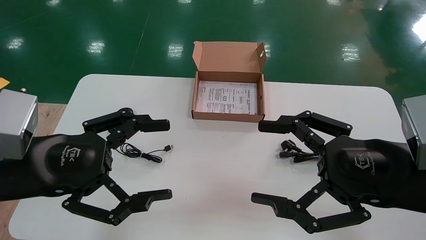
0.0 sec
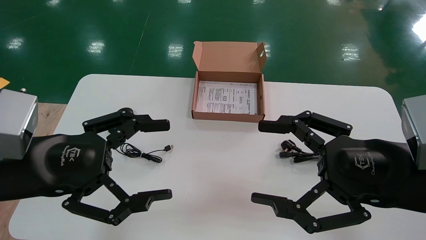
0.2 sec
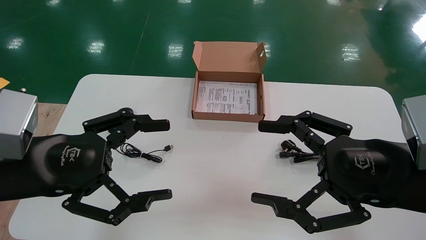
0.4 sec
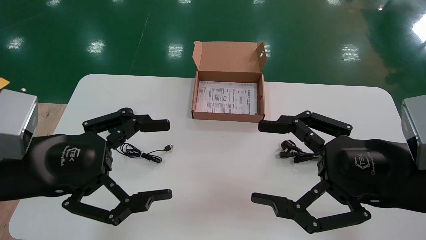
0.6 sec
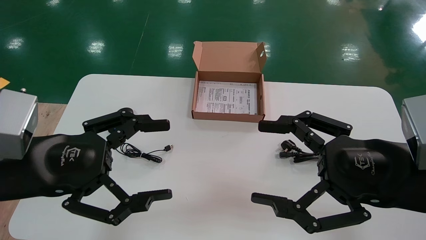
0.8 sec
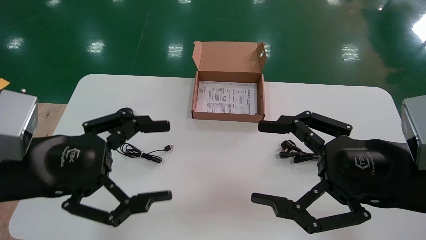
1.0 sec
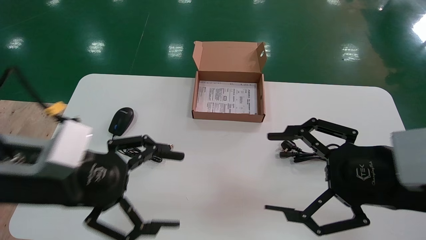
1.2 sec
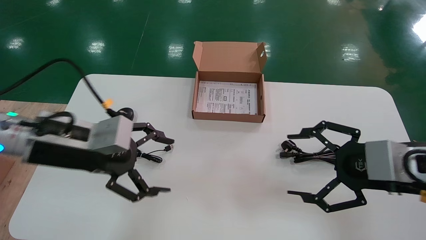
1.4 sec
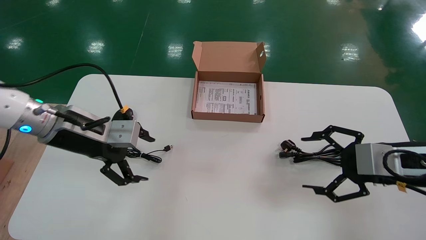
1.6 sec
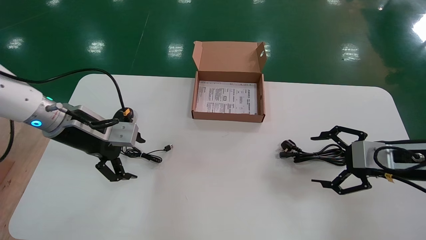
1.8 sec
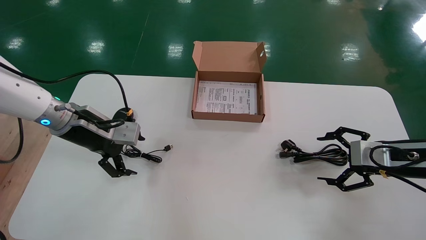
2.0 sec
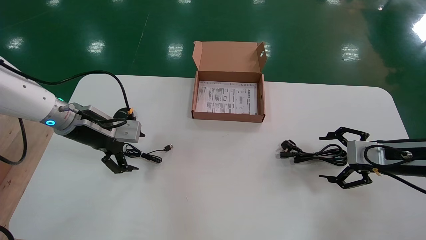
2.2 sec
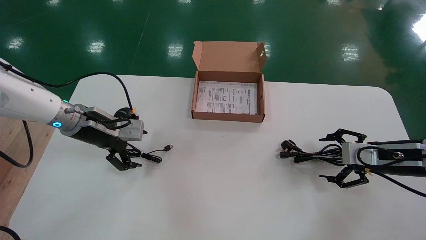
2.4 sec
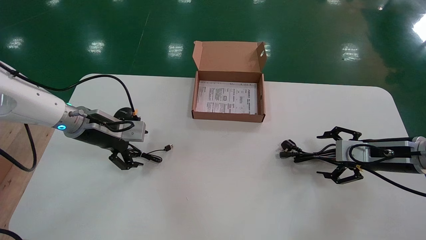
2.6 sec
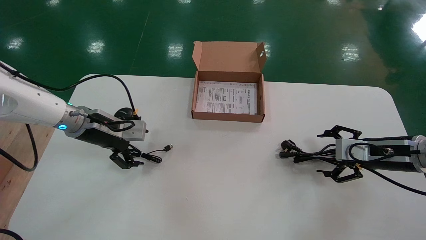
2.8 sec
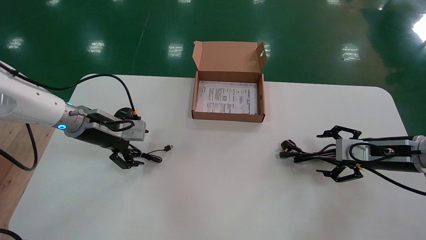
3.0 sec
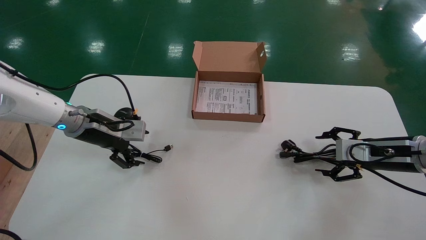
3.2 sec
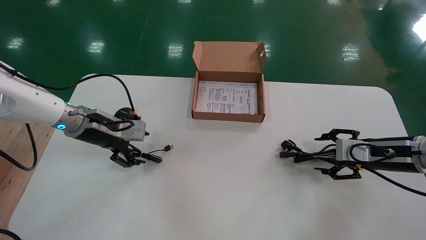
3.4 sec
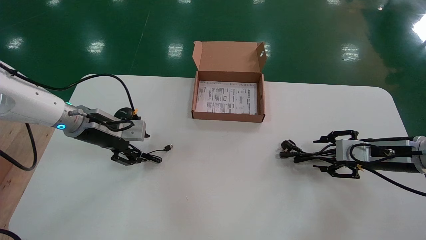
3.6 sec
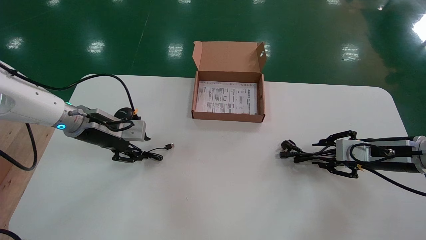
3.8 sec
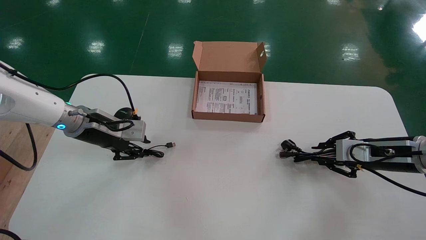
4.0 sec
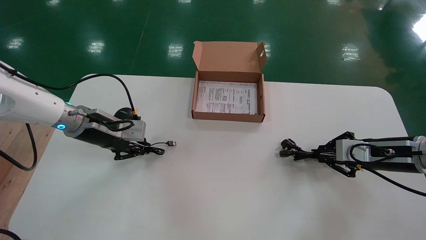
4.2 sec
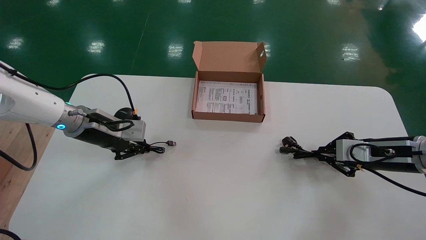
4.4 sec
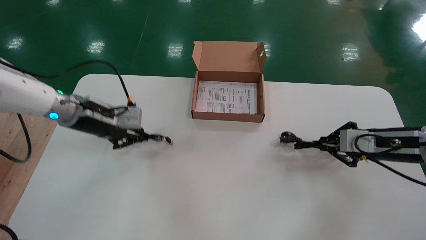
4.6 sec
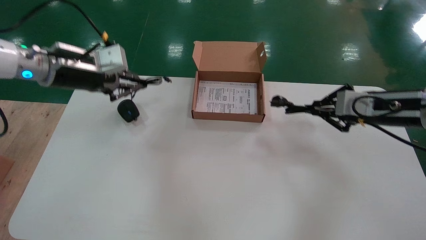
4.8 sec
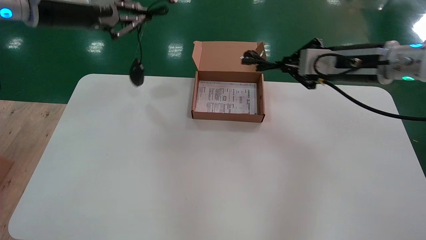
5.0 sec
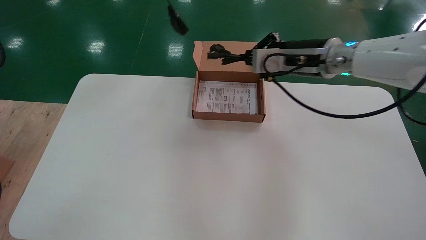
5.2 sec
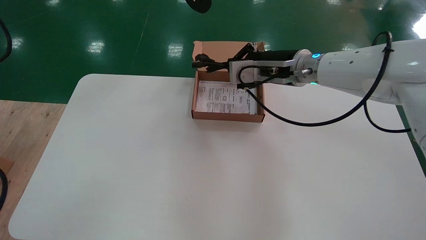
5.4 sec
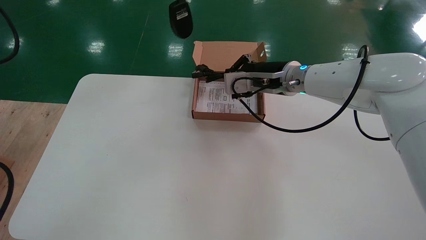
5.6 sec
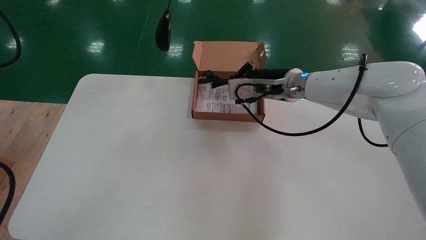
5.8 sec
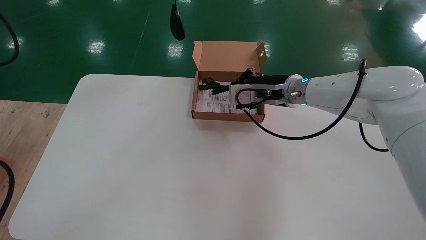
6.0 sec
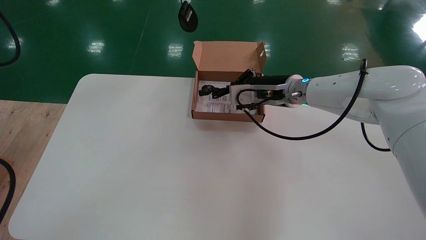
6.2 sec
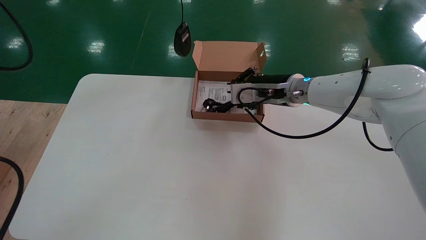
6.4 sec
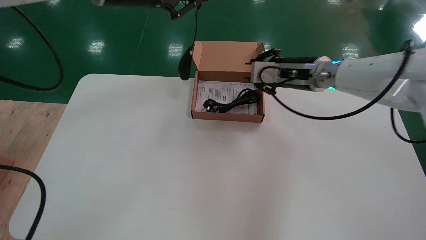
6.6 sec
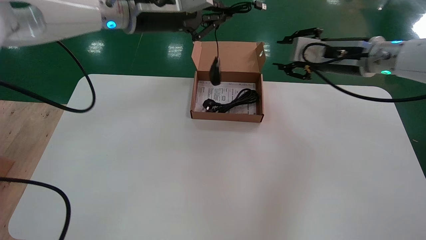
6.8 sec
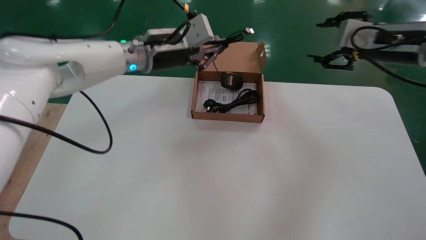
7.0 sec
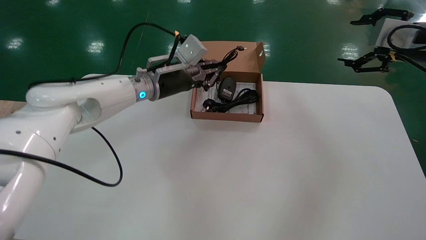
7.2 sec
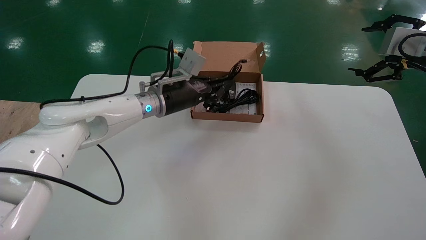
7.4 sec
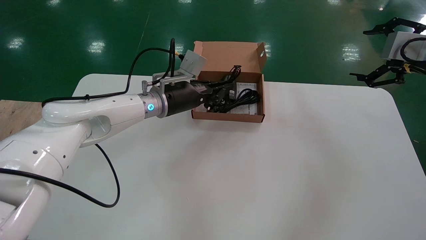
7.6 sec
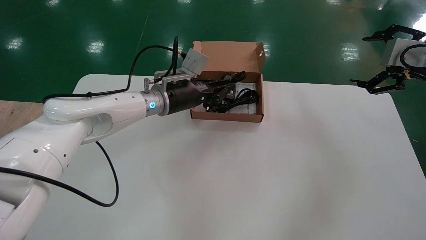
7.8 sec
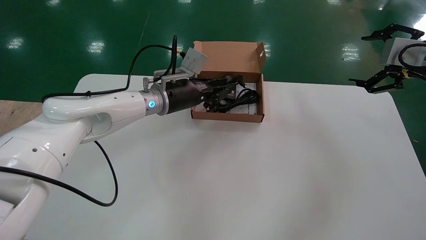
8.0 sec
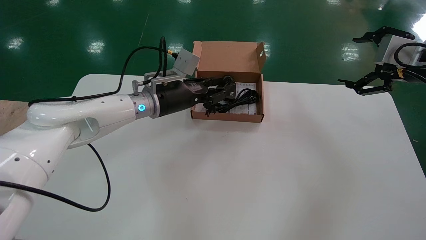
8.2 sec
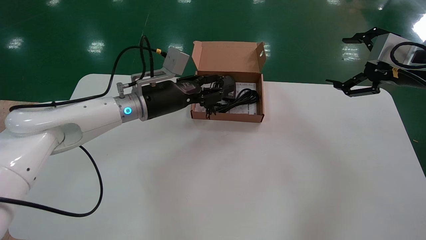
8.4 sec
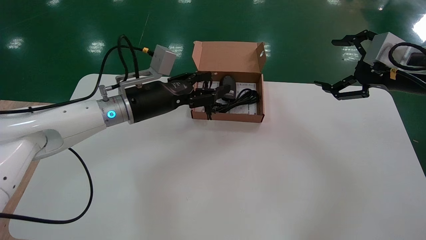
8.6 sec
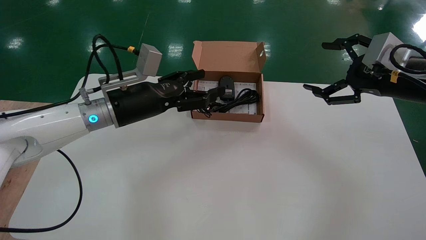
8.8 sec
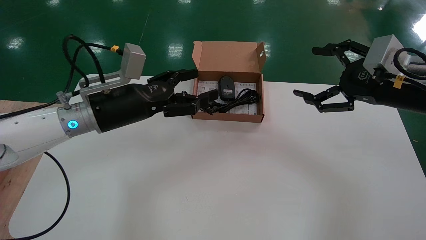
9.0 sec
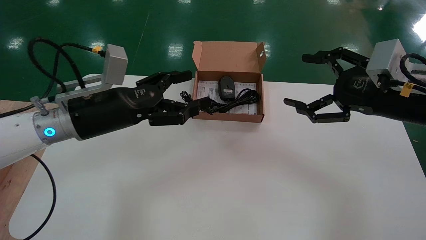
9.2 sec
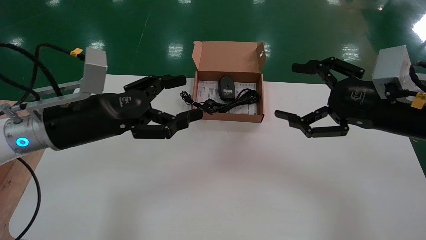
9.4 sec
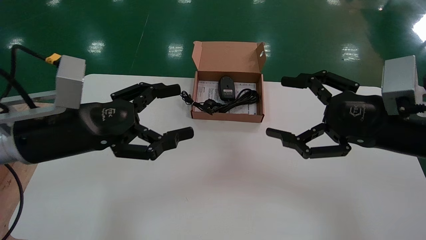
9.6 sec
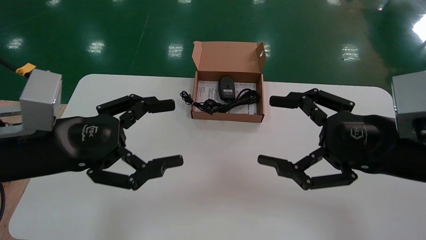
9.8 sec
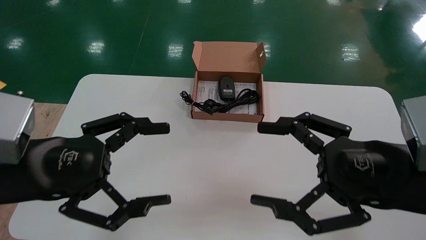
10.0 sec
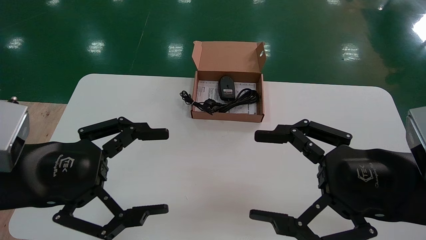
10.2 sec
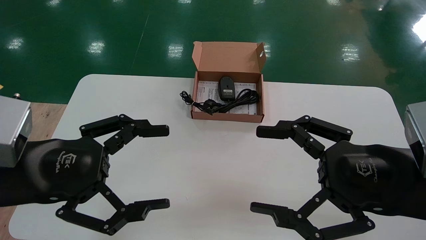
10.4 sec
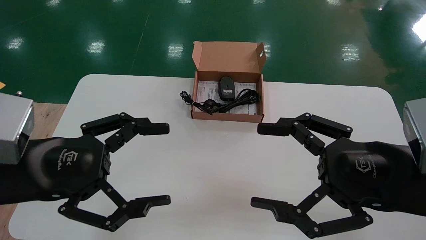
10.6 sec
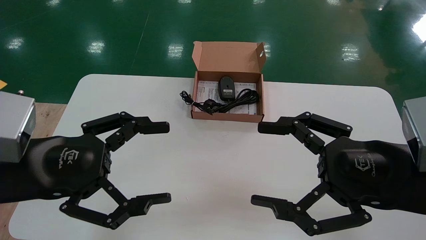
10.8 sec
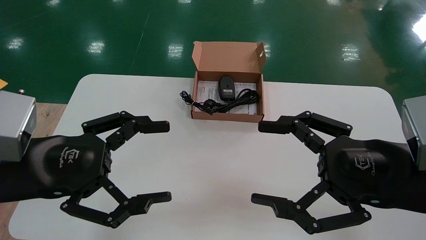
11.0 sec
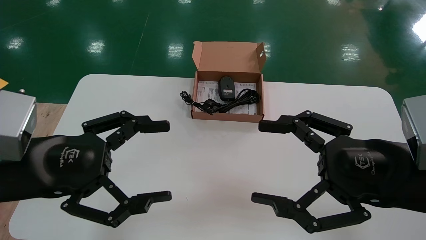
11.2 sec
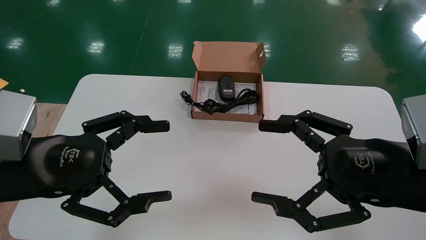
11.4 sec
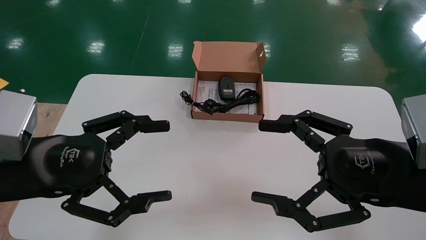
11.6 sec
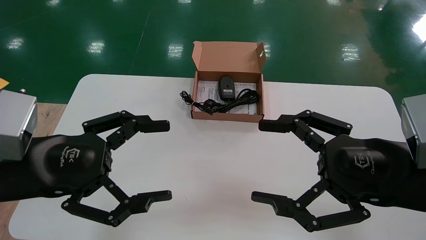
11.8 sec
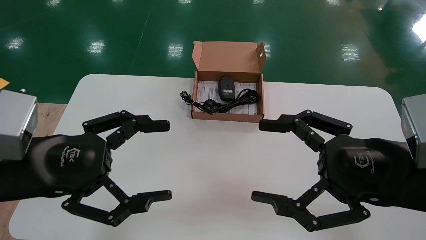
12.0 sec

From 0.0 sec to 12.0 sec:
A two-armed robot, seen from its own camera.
Step, from 1.4 sec to 4.4 sec: Simultaneously pick up the mouse and power cord from the accessory packaging area.
Step, from 4.6 sec to 8.6 sec: Place the mouse and power cord into the box.
From 0.0 sec to 1.6 sec: The left gripper goes roughly 15 cm forward, while the right gripper travels forward and to the right by about 15 cm.
From 1.6 sec to 3.0 sec: Both grippers move forward, approximately 10 cm.
From 3.0 sec to 4.4 sec: The right gripper closes, while the left gripper closes its fingers.
From 4.4 sec to 6.0 sec: The right gripper goes about 25 cm to the left and forward, while the left gripper goes roughly 30 cm upward.
From 6.0 sec to 7.6 sec: The right gripper heads to the right and backward, covering approximately 30 cm, and opens up; the left gripper goes some 30 cm downward and forward.
From 7.6 sec to 9.0 sec: The left gripper heads backward and to the left, covering approximately 15 cm, and opens. Meanwhile the right gripper travels to the left by some 10 cm.
From 9.0 sec to 10.4 sec: The left gripper goes roughly 15 cm backward. The right gripper heads backward, to the left and downward, covering some 15 cm.
From 10.4 sec to 12.0 sec: The two grippers keep their place.

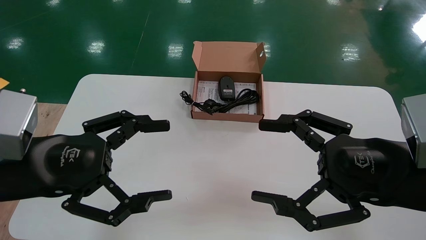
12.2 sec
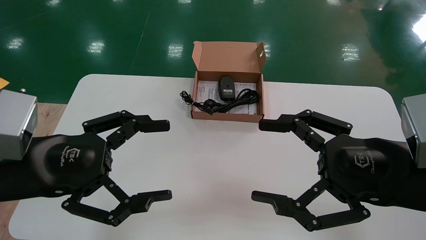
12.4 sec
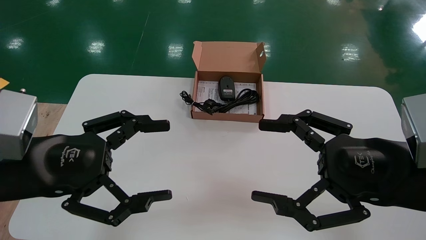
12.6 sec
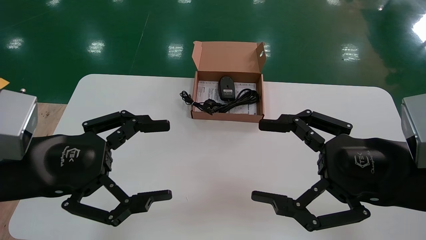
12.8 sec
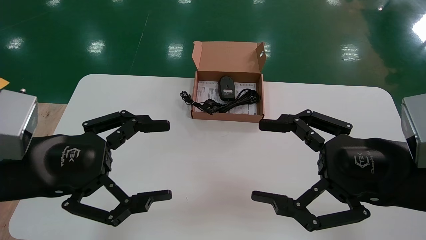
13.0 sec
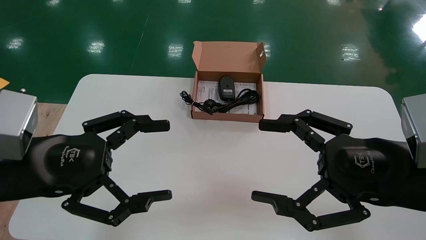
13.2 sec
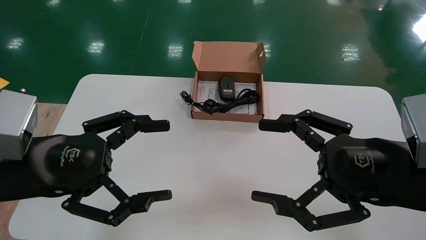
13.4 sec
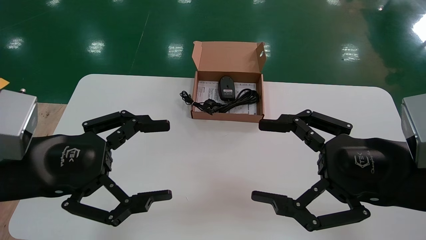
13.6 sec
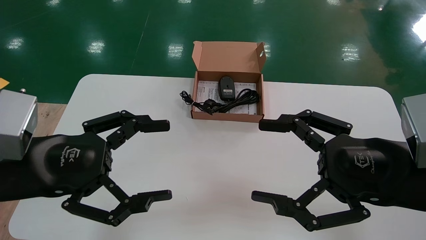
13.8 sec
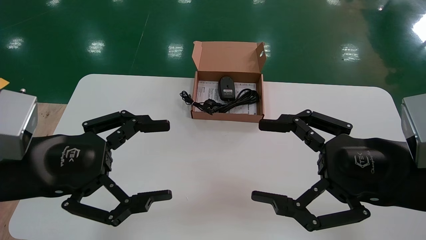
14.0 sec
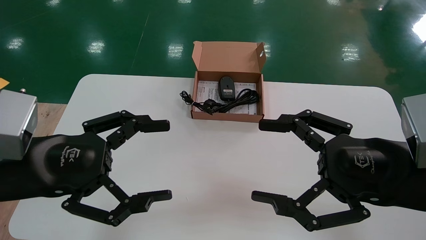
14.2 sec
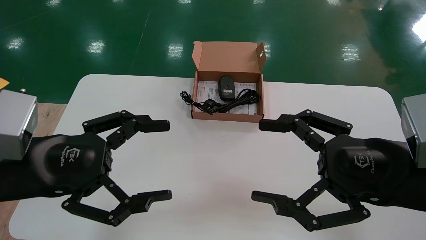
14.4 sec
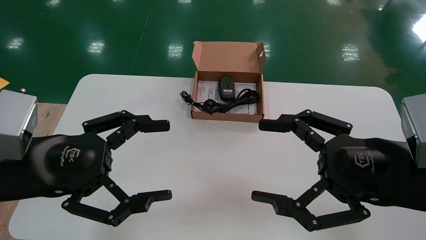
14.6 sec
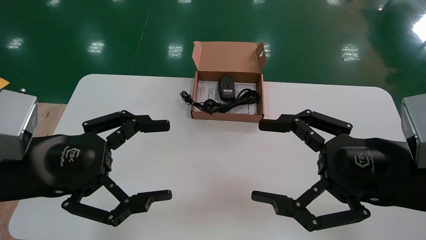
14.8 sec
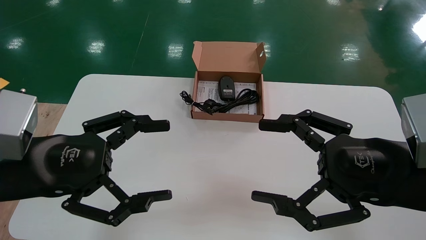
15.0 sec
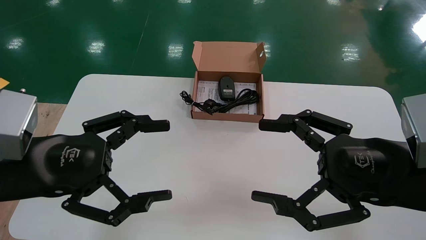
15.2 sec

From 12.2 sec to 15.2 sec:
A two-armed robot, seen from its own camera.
From 12.2 sec to 15.2 sec: Both grippers stay about where they are.
